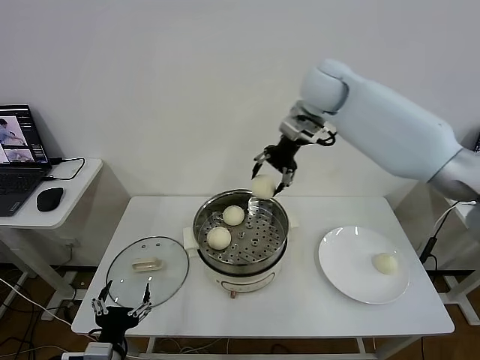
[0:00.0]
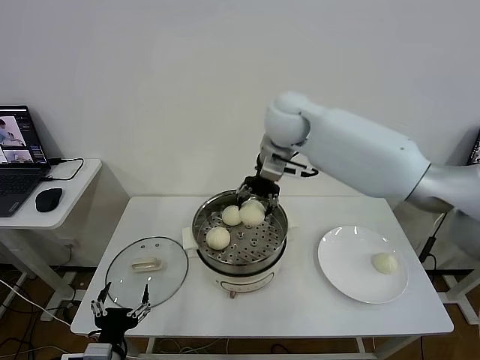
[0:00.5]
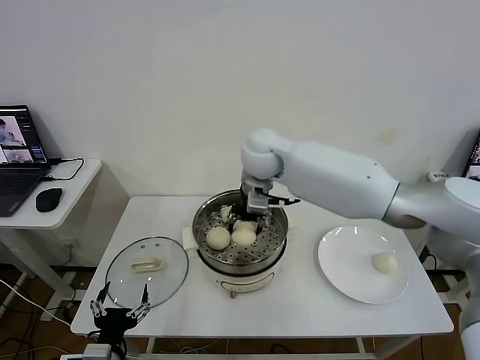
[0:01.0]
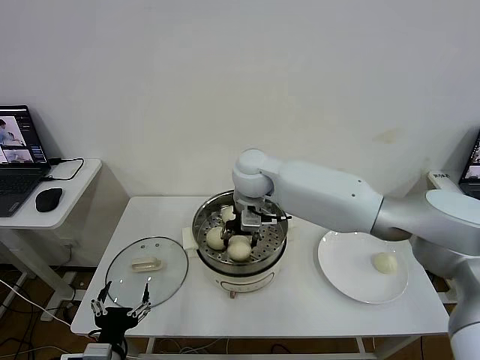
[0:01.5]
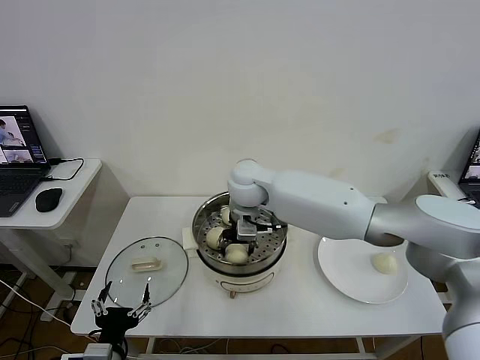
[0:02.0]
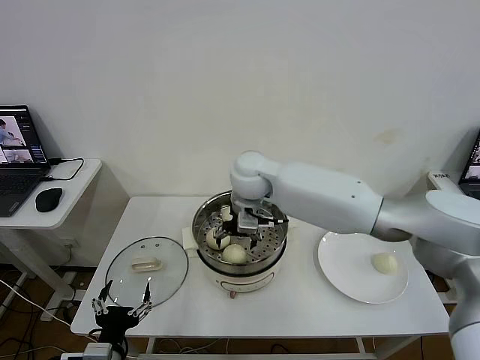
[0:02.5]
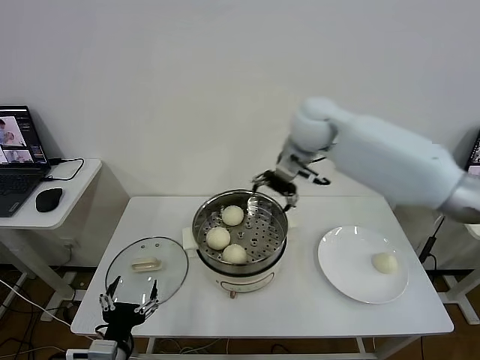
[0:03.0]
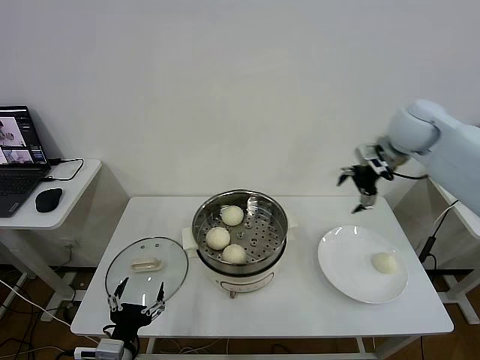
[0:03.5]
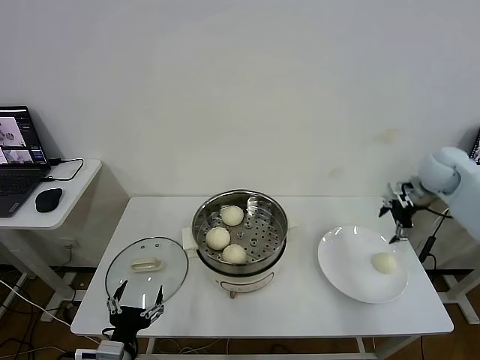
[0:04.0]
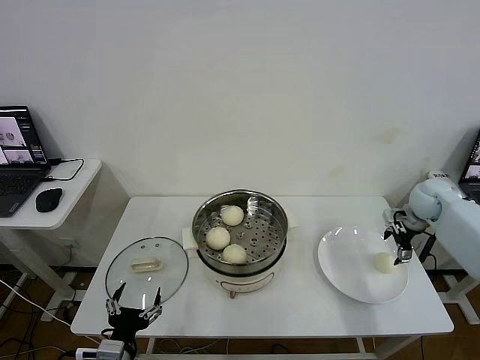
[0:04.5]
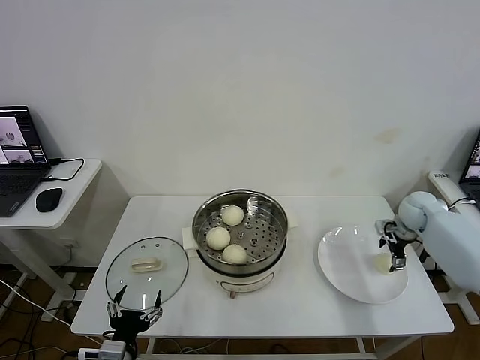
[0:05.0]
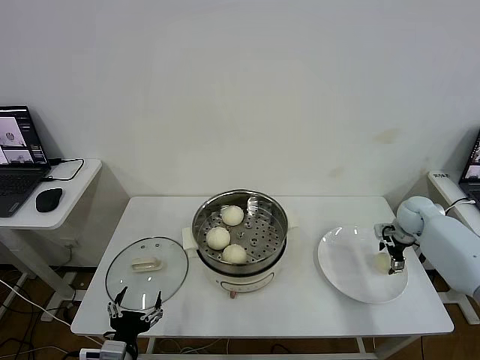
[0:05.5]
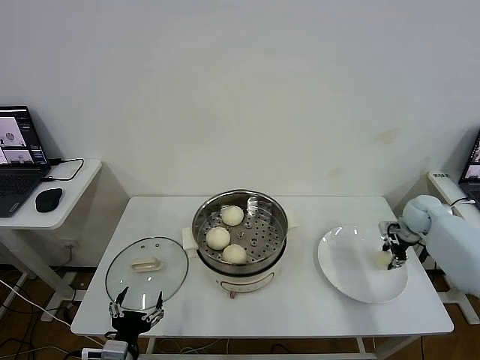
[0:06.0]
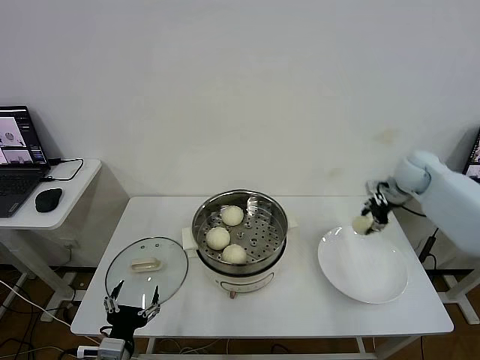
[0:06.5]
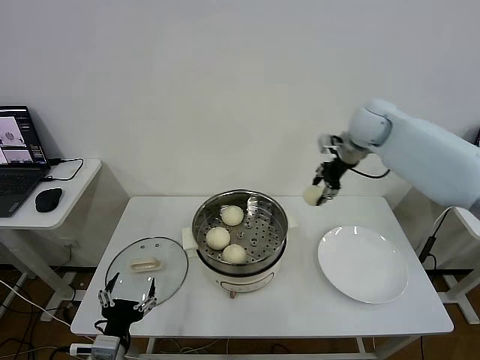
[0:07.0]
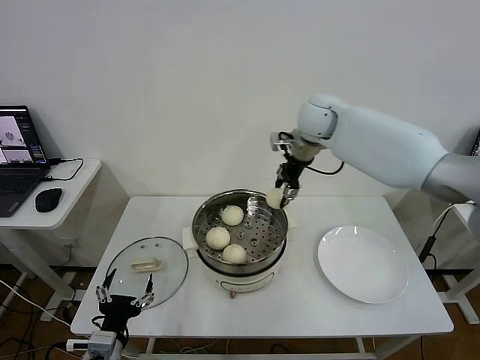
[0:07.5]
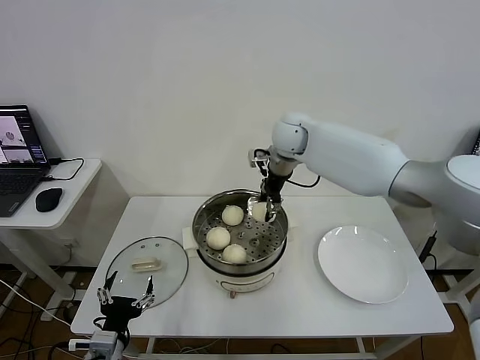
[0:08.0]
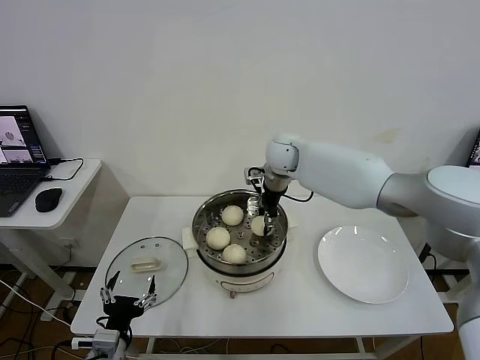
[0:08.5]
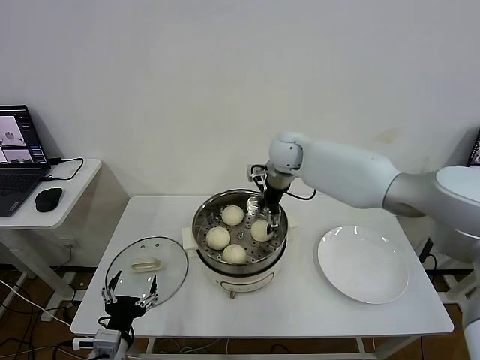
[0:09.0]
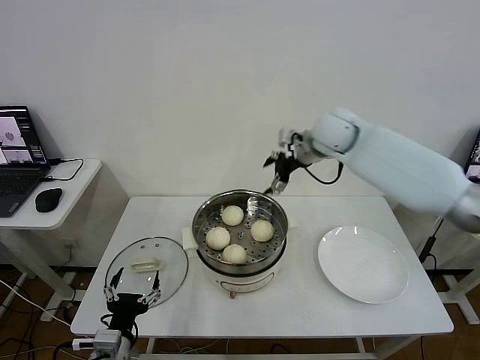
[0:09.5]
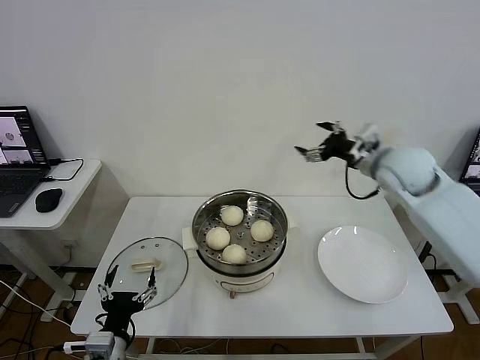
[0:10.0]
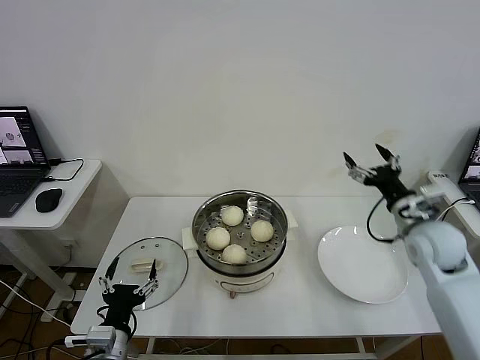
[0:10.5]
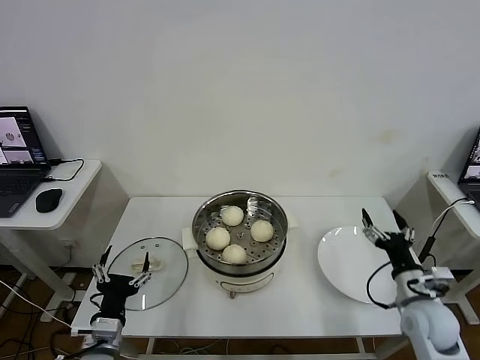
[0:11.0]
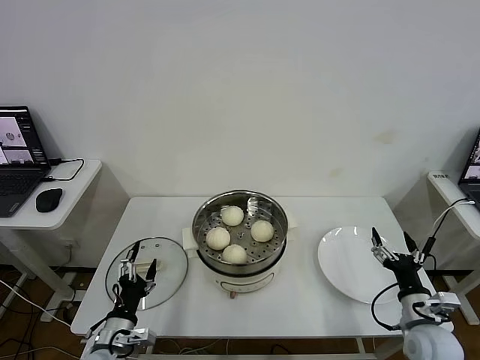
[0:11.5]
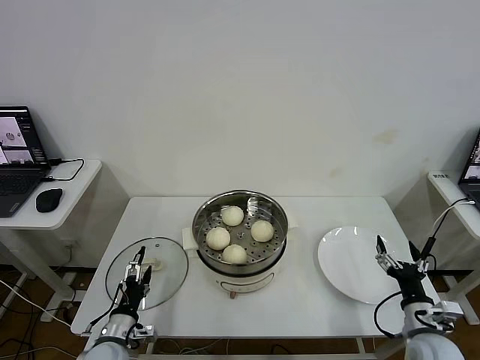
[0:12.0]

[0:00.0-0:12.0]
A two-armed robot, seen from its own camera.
Step, 0:00.0 to 0:02.0: Place the baozi on the steamer with right gripper.
Step, 0:02.5 to 0:05.5: Grasp the baozi in the plate with right gripper.
Step, 0:06.0 to 0:08.5: Place the baozi on the steamer with right gripper.
0:00.0 to 0:02.0: The right gripper heads downward, to the left and backward, covering roughly 25 cm.
0:02.0 to 0:04.0: The right gripper shifts some 40 cm to the right, and opens its fingers.
0:04.0 to 0:06.0: The right gripper shifts about 15 cm downward, and closes.
0:06.0 to 0:08.0: The right gripper shifts roughly 40 cm to the left and upward.
0:08.0 to 0:10.0: The right gripper is displaced to the right and backward by roughly 25 cm, and opens up.
0:10.0 to 0:12.0: The right gripper shifts roughly 35 cm downward and backward. The left gripper is displaced downward and forward by roughly 10 cm.

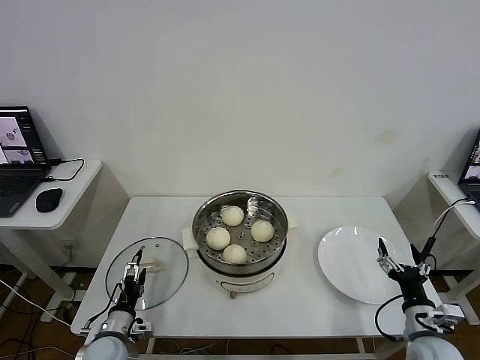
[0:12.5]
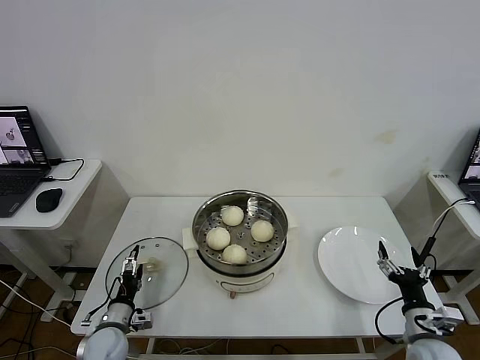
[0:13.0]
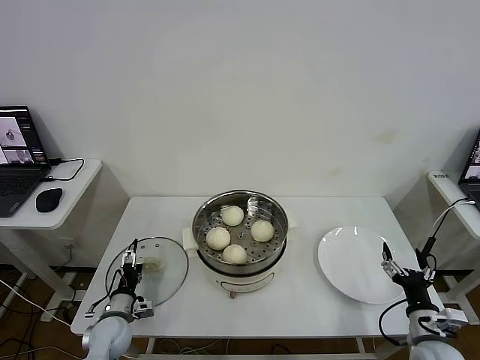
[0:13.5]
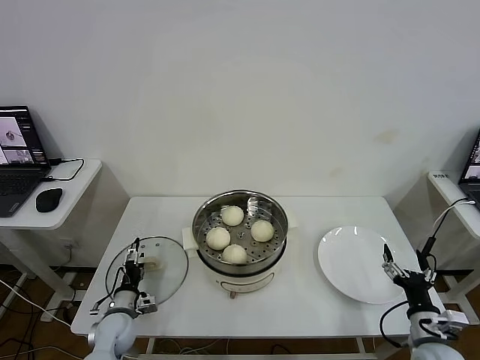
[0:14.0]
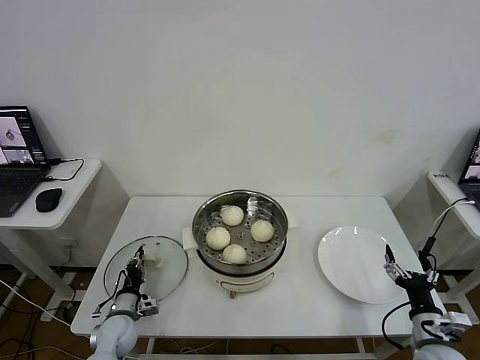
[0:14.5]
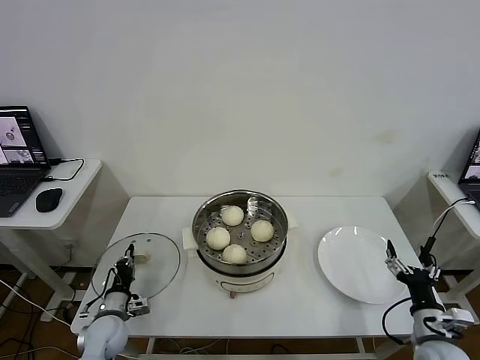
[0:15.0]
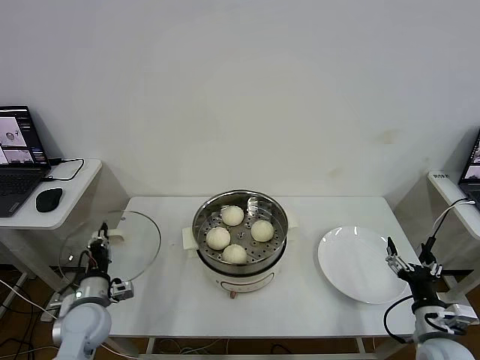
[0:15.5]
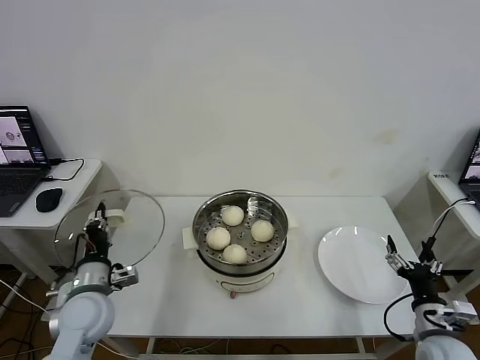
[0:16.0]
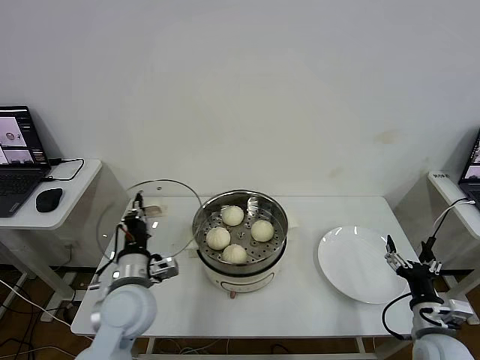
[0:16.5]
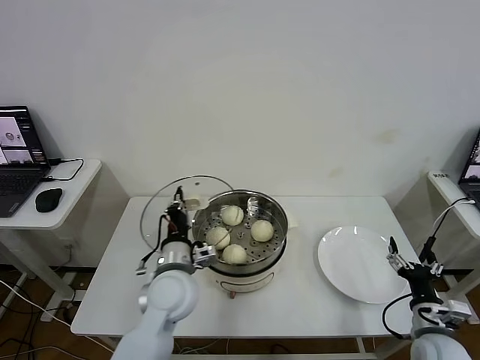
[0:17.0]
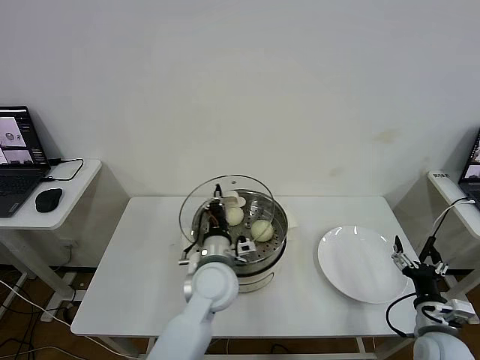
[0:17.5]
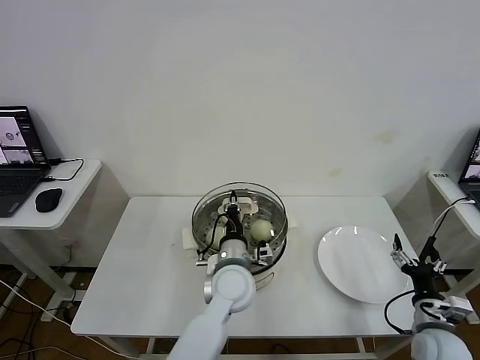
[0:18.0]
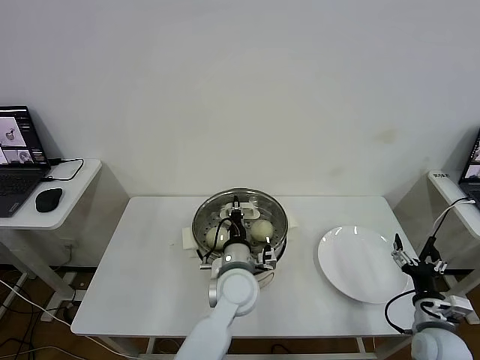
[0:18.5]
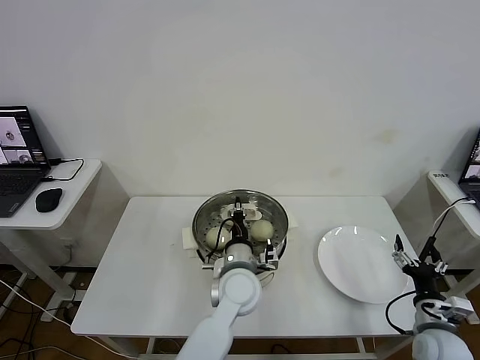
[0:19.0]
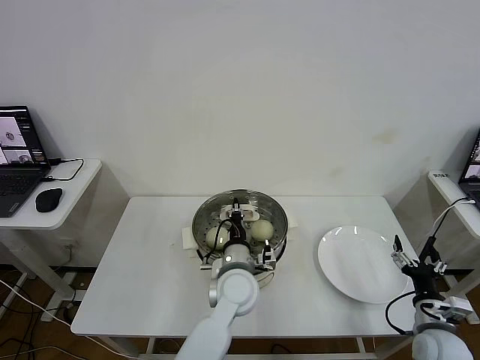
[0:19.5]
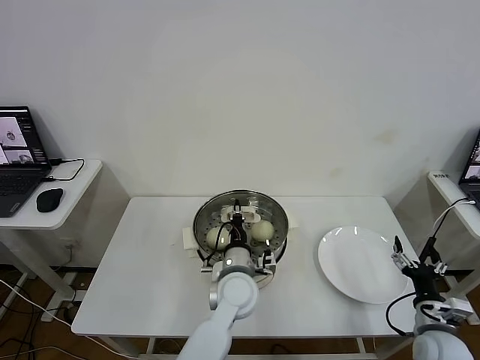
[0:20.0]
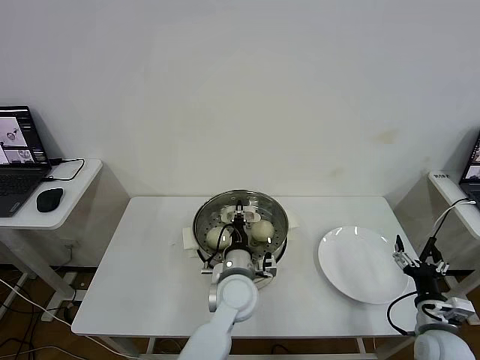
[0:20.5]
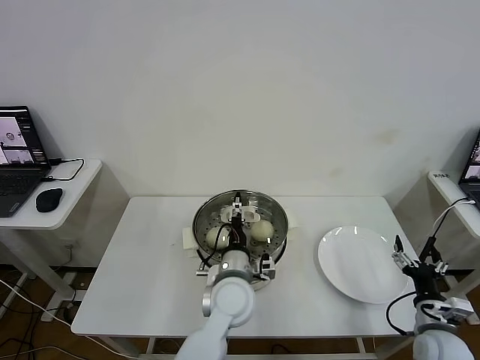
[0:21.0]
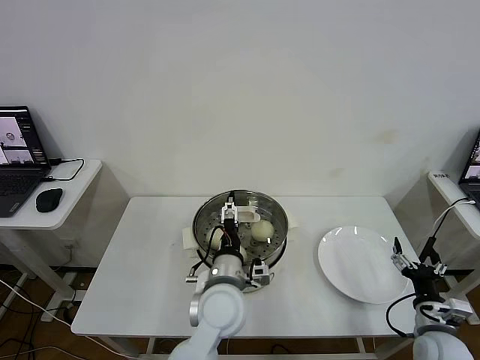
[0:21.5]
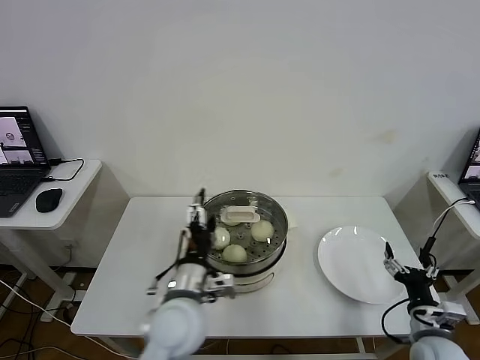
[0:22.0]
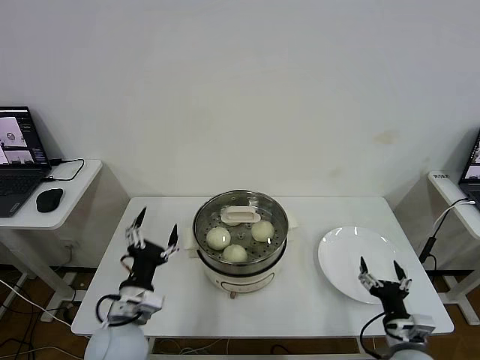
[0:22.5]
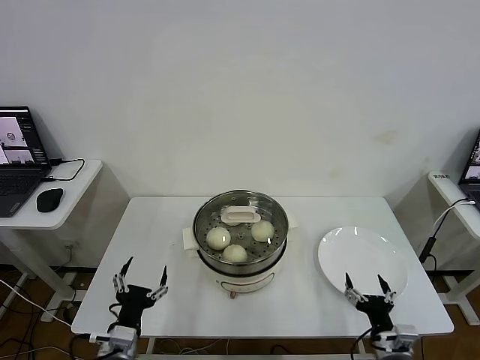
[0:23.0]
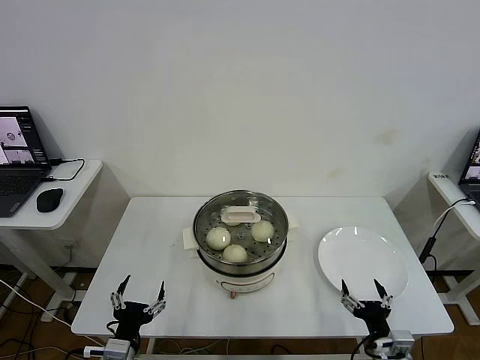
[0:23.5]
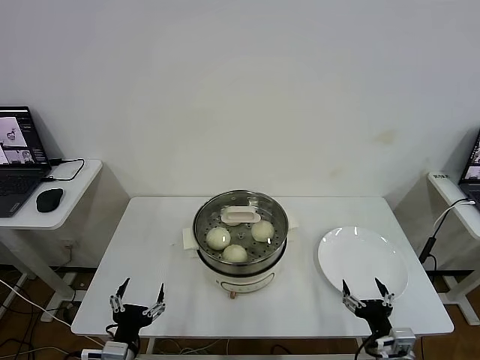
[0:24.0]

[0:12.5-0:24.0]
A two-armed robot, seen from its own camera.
Step, 0:12.5 to 0:14.5: Grasp the pot lid with left gripper.
Step, 0:15.0 to 0:21.5: Place the pot lid on the steamer with left gripper.
0:12.5 to 0:14.5: The left gripper goes about 5 cm forward, and closes its fingers.
0:14.5 to 0:16.5: The left gripper shifts about 25 cm upward and to the right.
0:16.5 to 0:18.5: The left gripper goes some 20 cm to the right.
0:18.5 to 0:20.0: The grippers make only small movements.
0:20.0 to 0:22.0: The left gripper is displaced to the left, backward and upward by roughly 15 cm, and opens up.
0:22.0 to 0:24.0: The right gripper is displaced to the left by roughly 5 cm. The left gripper goes roughly 25 cm to the left, downward and backward.

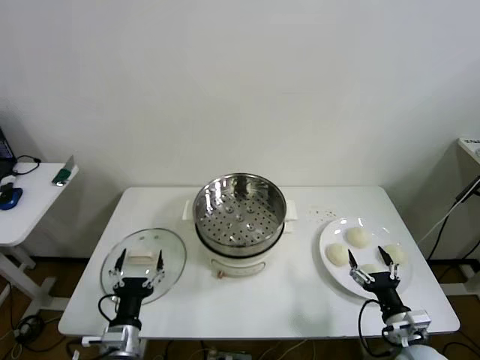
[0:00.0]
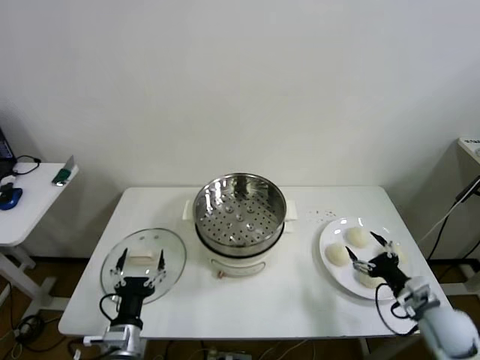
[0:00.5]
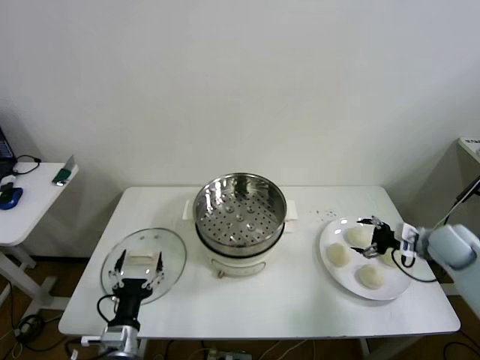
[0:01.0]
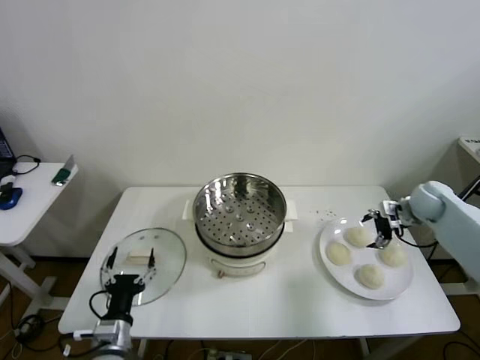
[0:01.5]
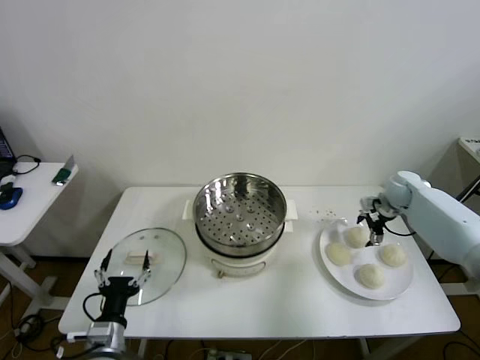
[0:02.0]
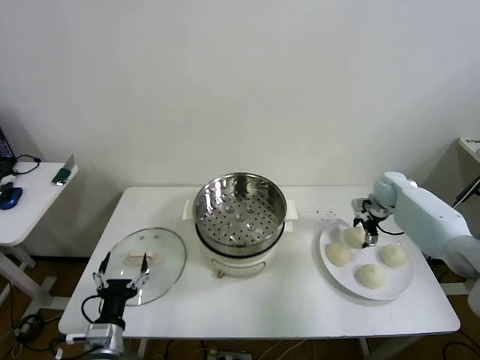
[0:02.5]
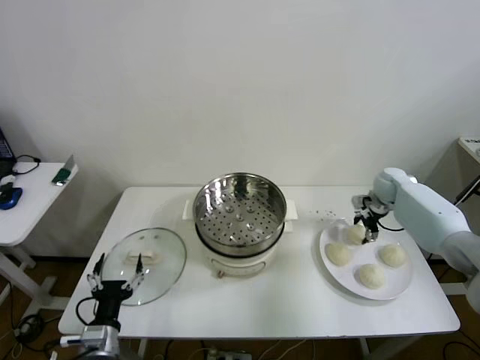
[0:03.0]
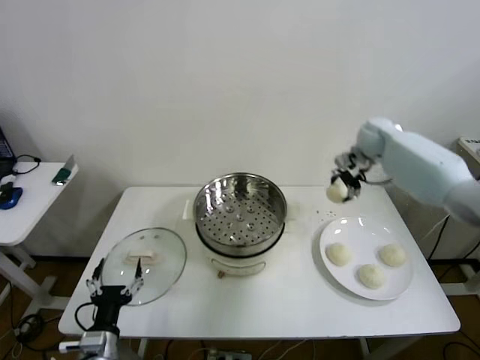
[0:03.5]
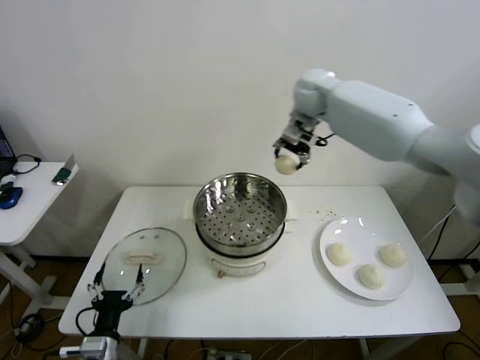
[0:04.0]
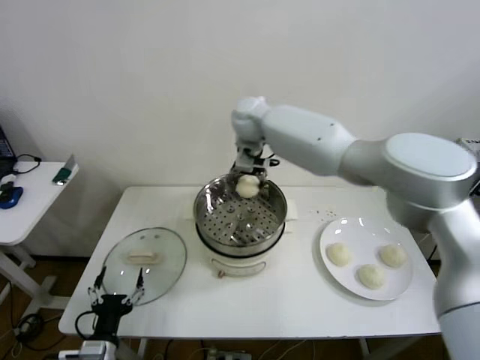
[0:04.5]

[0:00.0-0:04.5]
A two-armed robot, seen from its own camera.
Step, 0:00.0 to 0:02.5: Grasp the baozi in the plate with right gripper.
0:02.0 to 0:04.5: The right gripper moves to the left and upward, approximately 50 cm, and closes its fingers.
